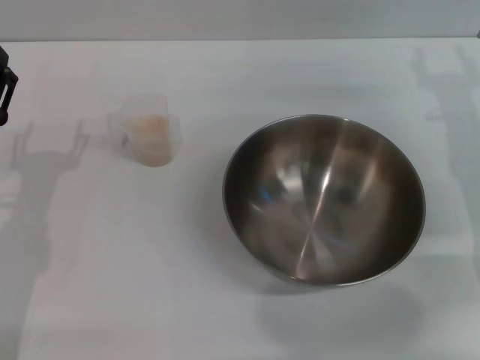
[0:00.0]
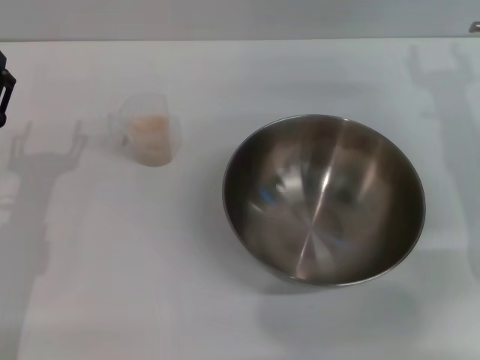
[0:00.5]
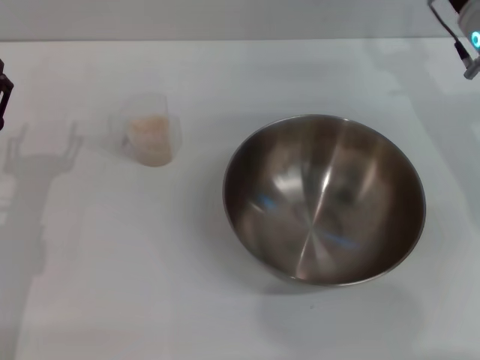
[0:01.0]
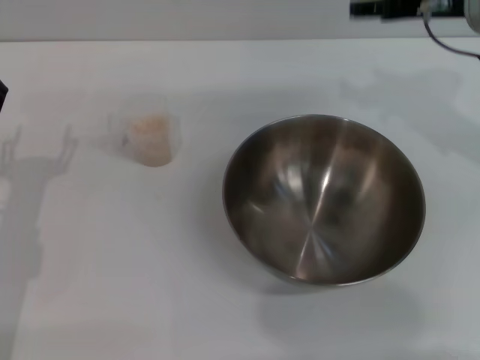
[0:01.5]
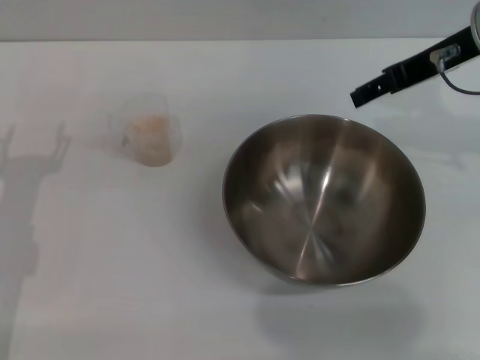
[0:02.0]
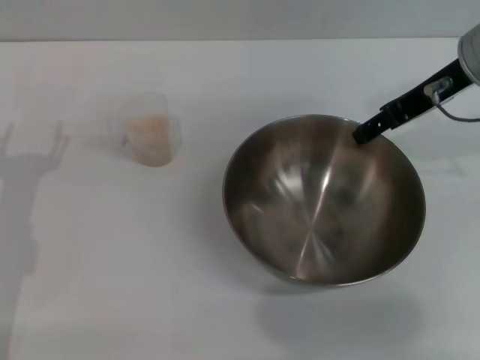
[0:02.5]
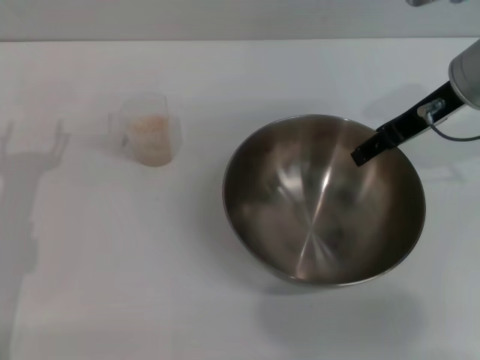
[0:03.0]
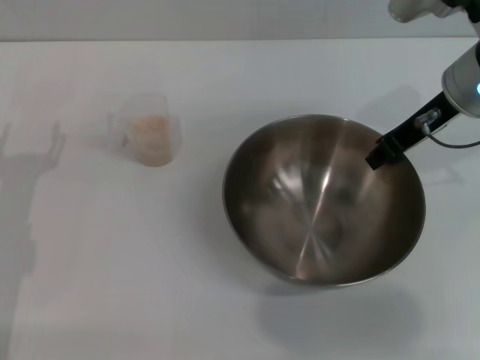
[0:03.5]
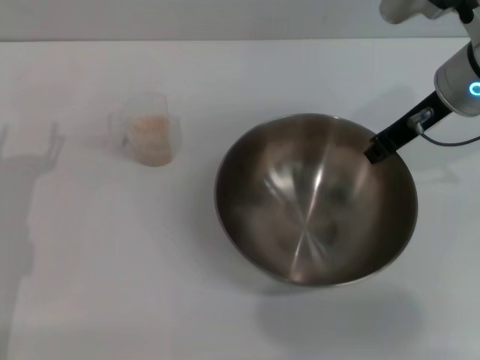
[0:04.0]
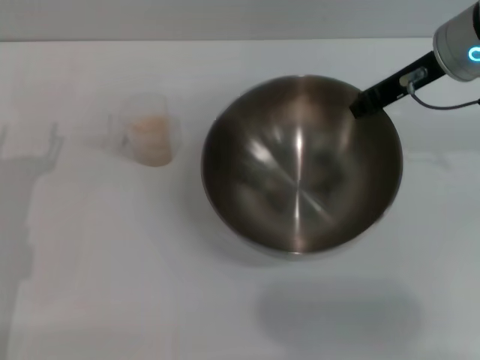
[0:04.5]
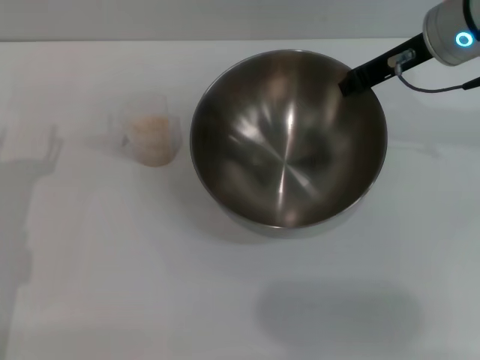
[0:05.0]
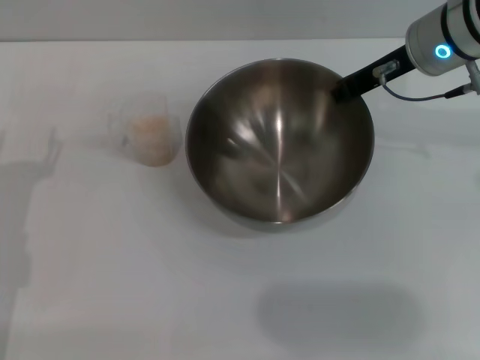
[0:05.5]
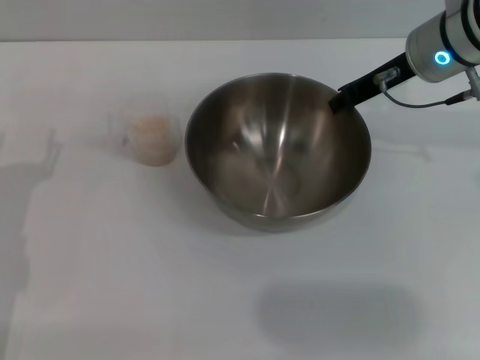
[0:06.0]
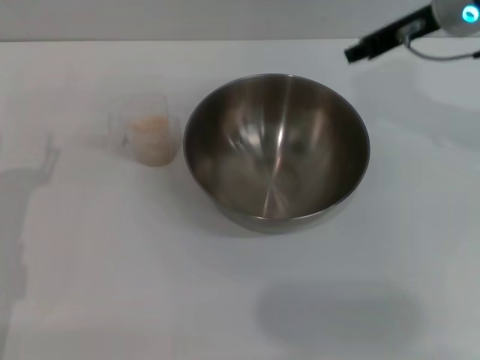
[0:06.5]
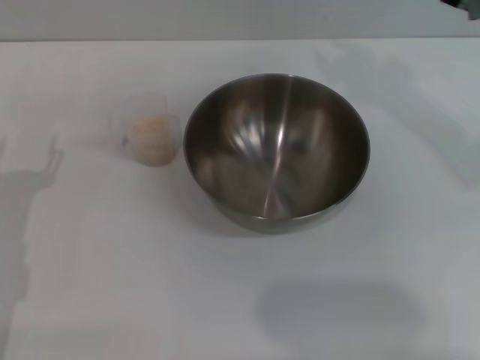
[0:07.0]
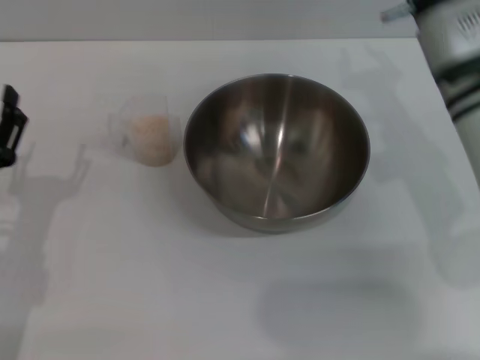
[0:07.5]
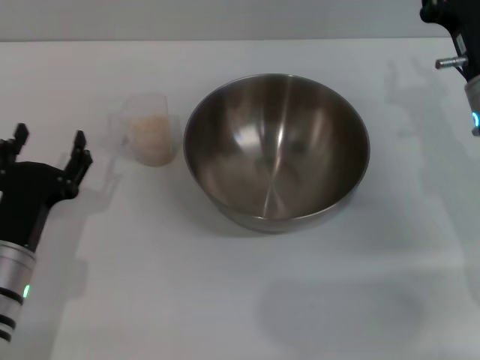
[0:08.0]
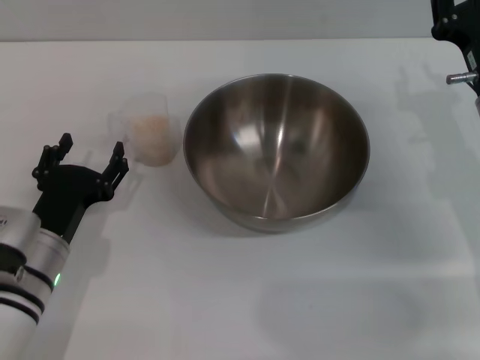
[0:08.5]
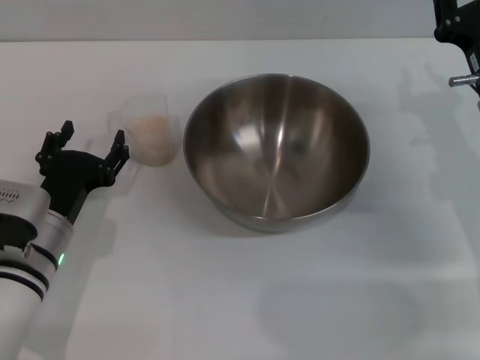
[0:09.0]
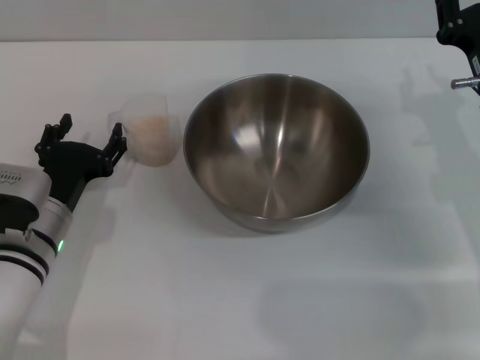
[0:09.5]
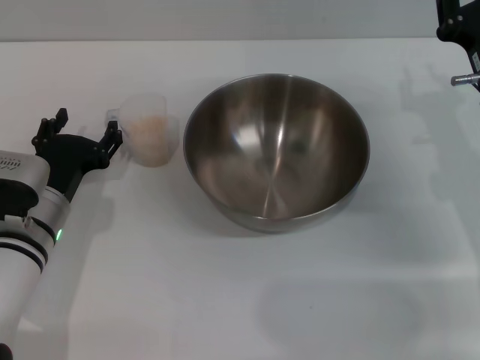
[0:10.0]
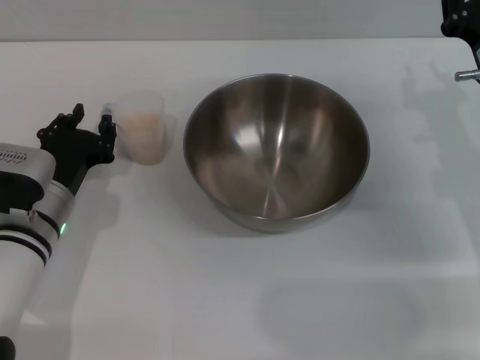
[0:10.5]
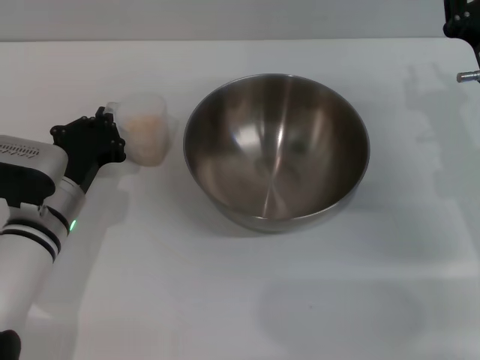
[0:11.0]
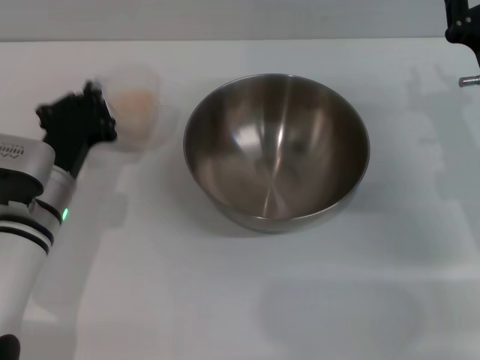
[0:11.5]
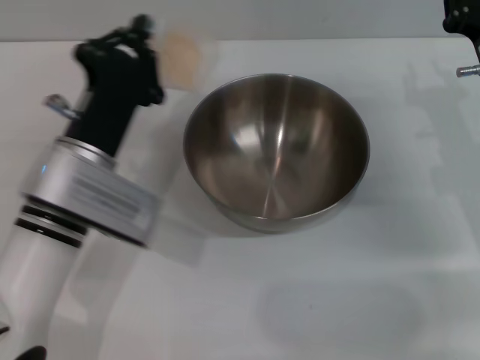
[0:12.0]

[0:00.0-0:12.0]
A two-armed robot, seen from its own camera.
Task of the whole recording: Place the bowl in the middle of the table with one hand and pour the rice from the grain cup into it with the other hand.
Step, 0:00.0 to 0:05.0: Pick up the bowl with the right gripper.
Step, 0:05.5 to 0:06.5: Place the bowl in the center of view with the right gripper.
Step, 0:07.0 to 0:11.5: Pick up the cup with rice in it with the left gripper.
0:00.0 to 0:02.0: The right gripper heads upward, covering some 15 cm.
0:02.0 to 0:04.0: The right gripper travels downward by some 5 cm, and closes its fingers.
0:06.0 to 0:08.0: The right gripper shifts approximately 10 cm downward and backward, and opens its fingers; the left gripper shifts approximately 5 cm to the right.
0:08.0 to 0:10.0: The left gripper moves forward, some 5 cm.
0:10.0 to 0:12.0: The left gripper moves upward and to the right, about 10 cm, and closes up.

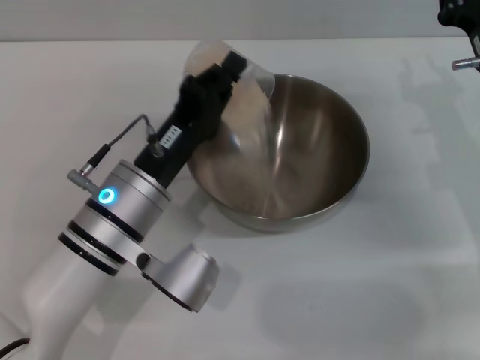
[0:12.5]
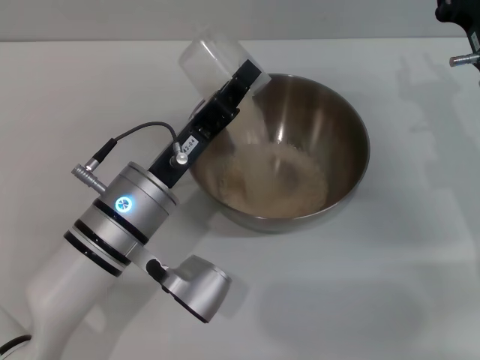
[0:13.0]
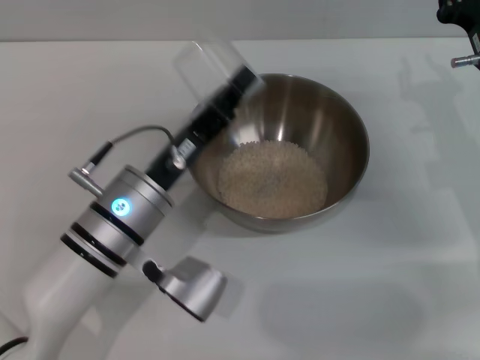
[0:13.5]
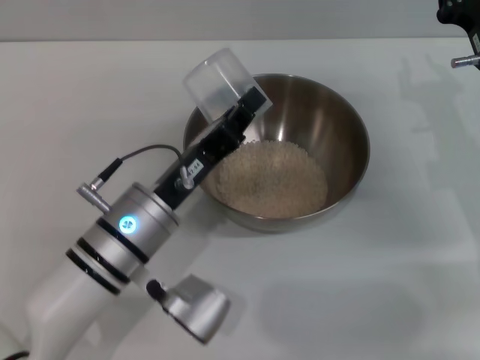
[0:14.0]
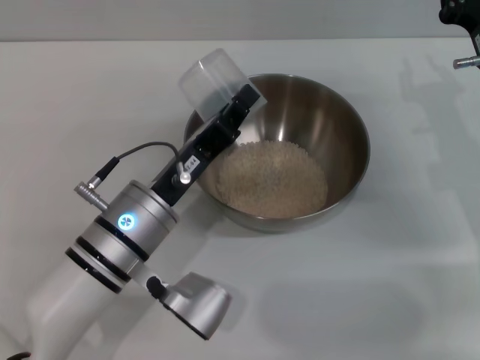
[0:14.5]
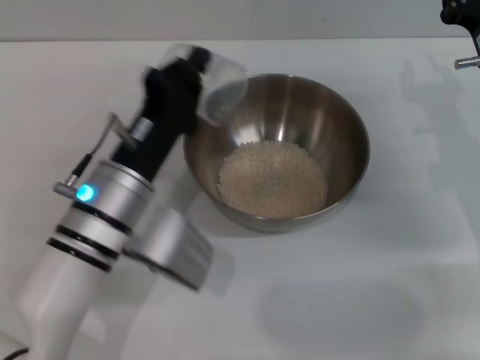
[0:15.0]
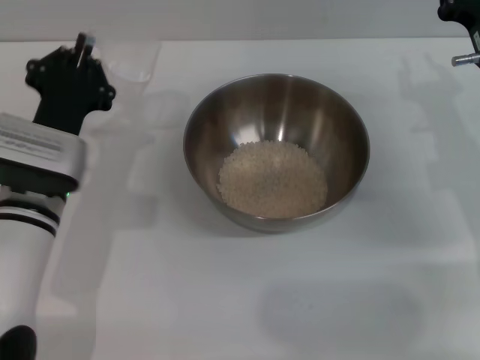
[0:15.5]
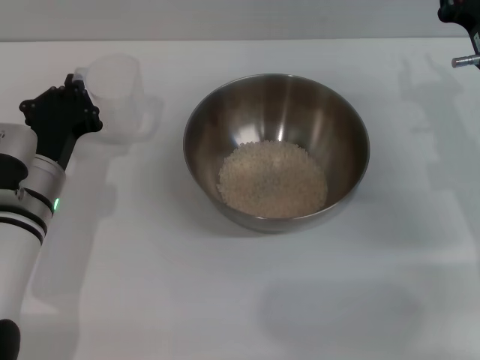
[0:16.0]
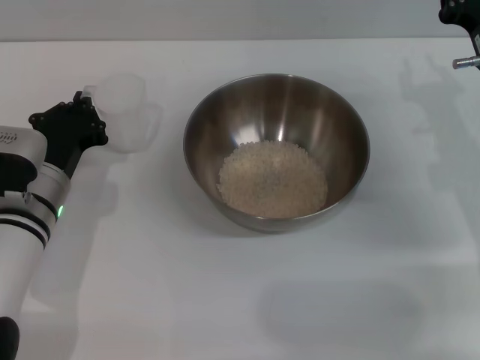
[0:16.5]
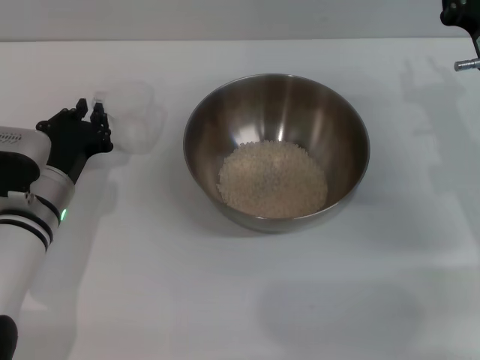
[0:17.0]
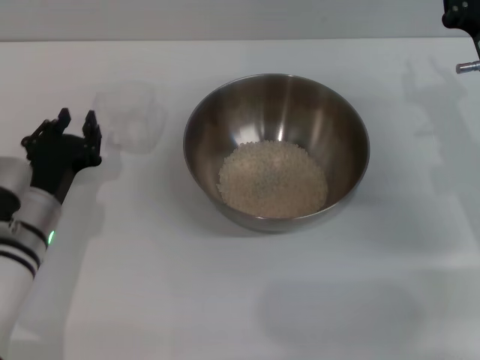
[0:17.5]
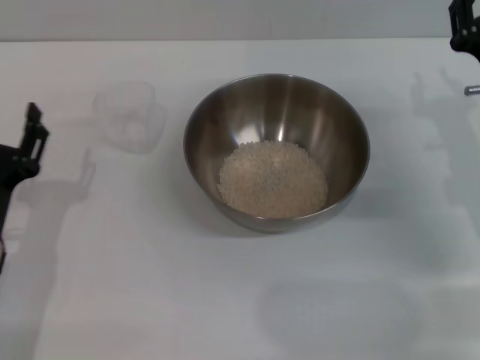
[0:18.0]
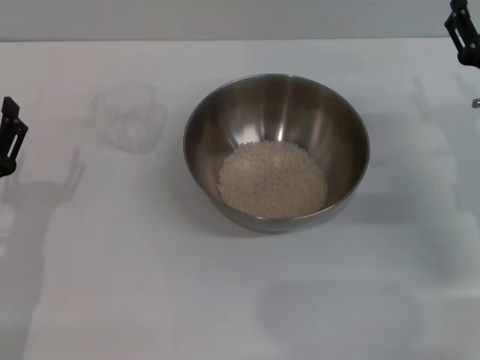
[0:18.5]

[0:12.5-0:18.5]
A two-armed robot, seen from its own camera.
Task of the whole recording: Place the bowl in the middle of the table with one hand and pour the rice from the grain cup into it with the other hand.
Step, 0:12.5 to 0:15.0: Pour the rice from the cup into the bowl with the left gripper.
Step, 0:15.5 to 0:17.5: Place the cup on the table with the left gripper.
0:14.5 to 0:16.5: The left gripper is displaced to the left and forward by approximately 10 cm.
0:16.5 to 0:18.5: The right gripper opens its fingers. Meanwhile the left gripper is displaced backward and to the left by approximately 10 cm, and opens up.

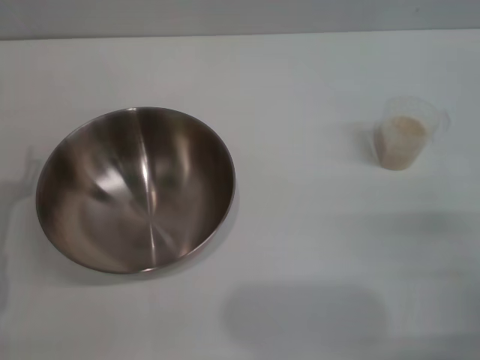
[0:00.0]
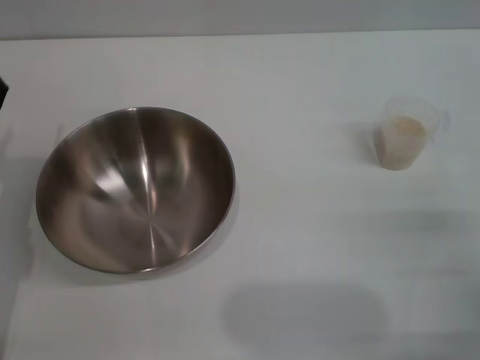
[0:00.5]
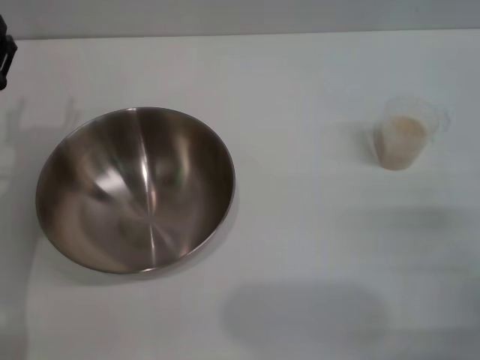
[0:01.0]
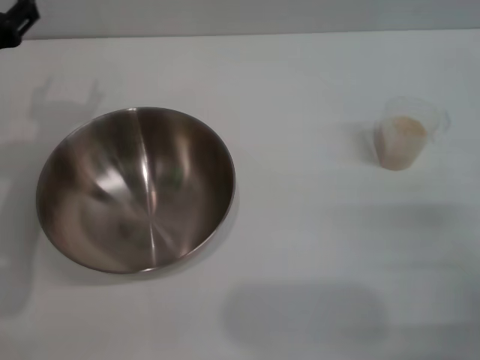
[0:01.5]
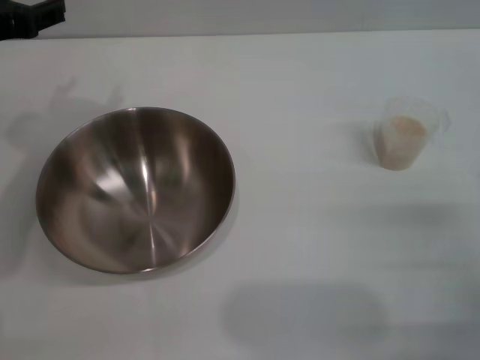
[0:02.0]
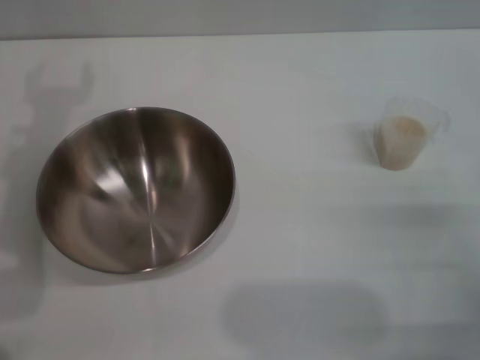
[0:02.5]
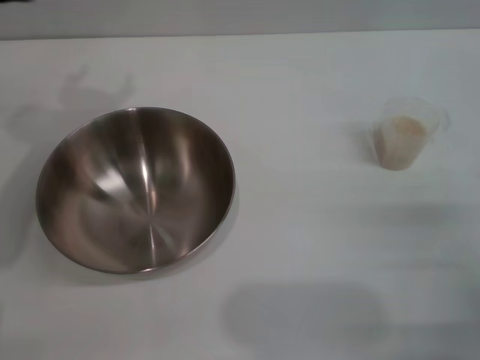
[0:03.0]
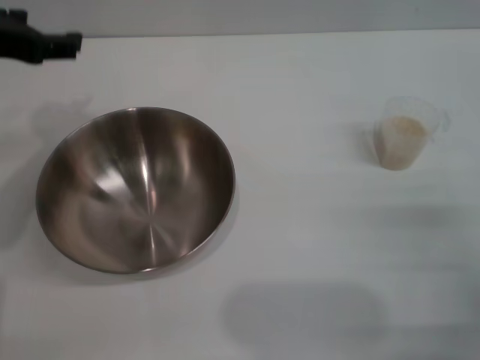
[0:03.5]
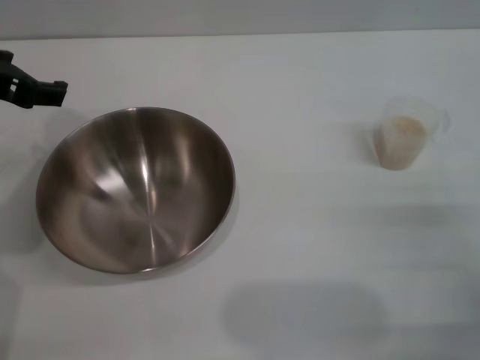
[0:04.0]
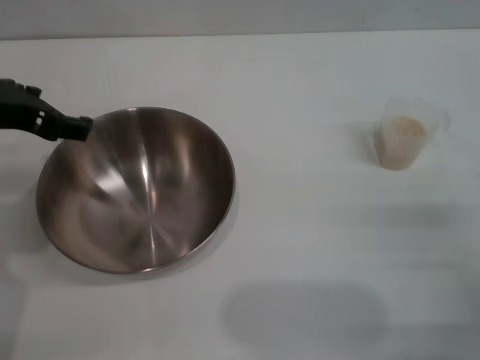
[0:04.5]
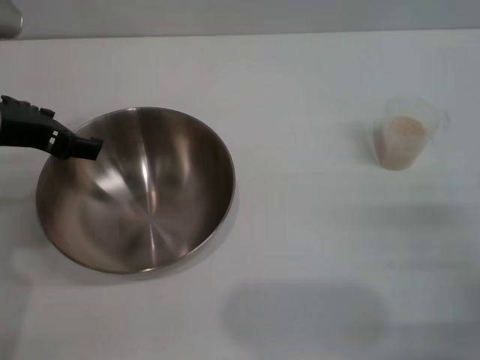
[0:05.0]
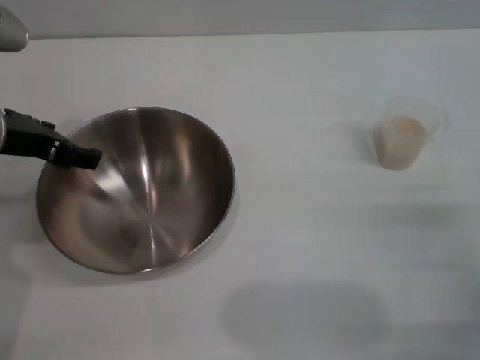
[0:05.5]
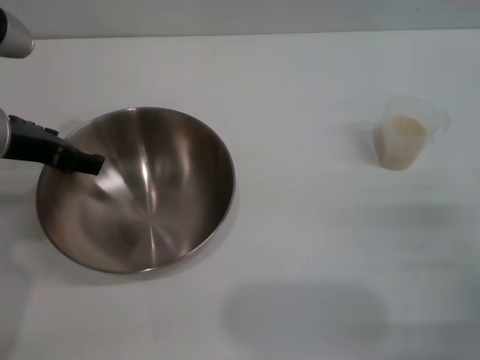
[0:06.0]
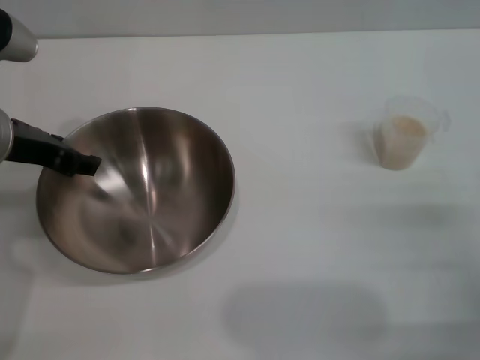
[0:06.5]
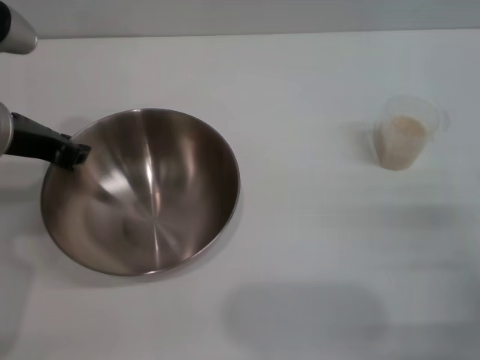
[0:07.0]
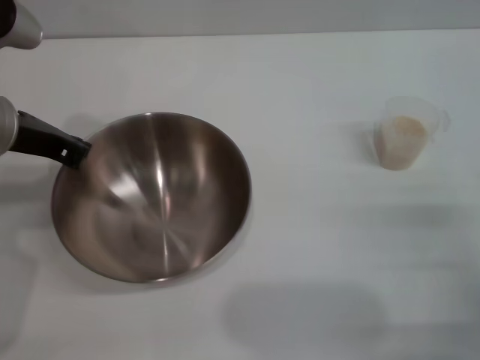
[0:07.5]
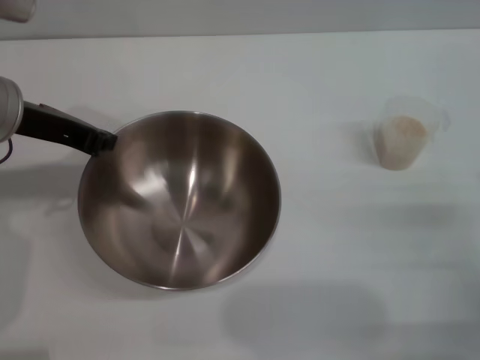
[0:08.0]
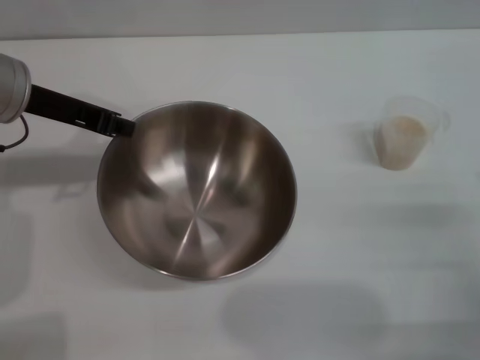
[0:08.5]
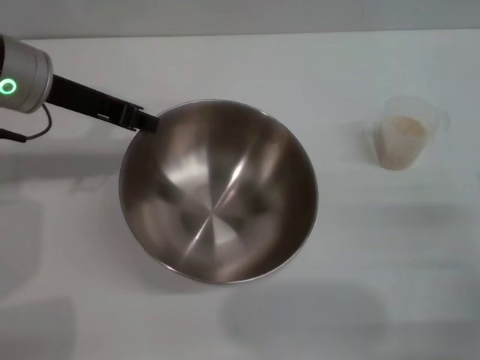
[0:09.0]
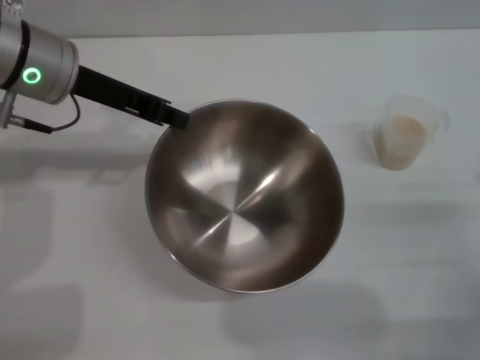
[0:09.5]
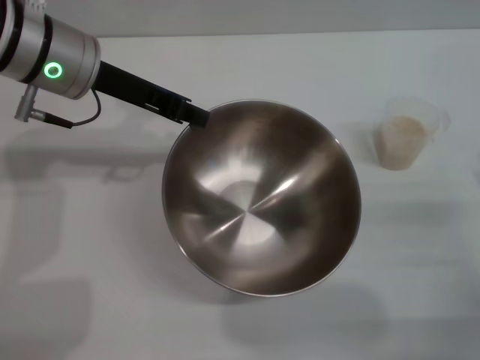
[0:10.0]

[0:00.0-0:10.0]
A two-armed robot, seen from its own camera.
Task of the whole recording: Place the bowl in the middle of the table with one hand and pour the rice from the grain cup into it with the other hand.
Step, 0:00.0 to 0:09.0: Pick up the bowl with the left gripper.
0:00.0 to 0:02.0: The left gripper heads upward and forward, covering some 20 cm.
0:04.0 to 0:06.0: The left gripper travels downward by approximately 5 cm.
0:06.0 to 0:08.0: The left gripper closes up.
0:08.0 to 0:10.0: The left gripper goes some 5 cm to the right.
